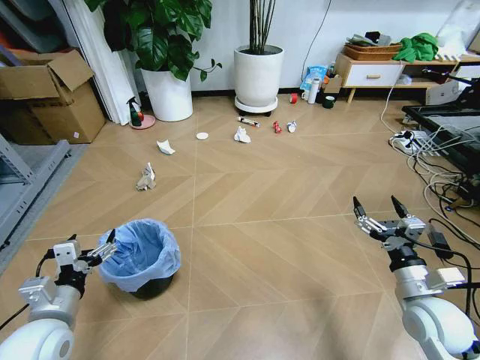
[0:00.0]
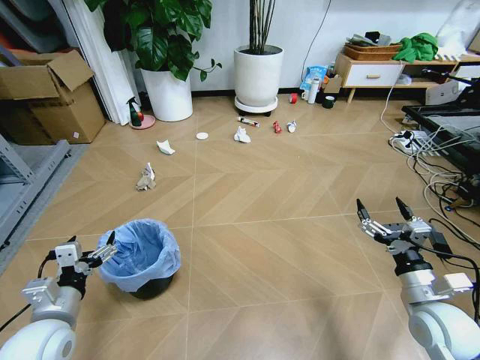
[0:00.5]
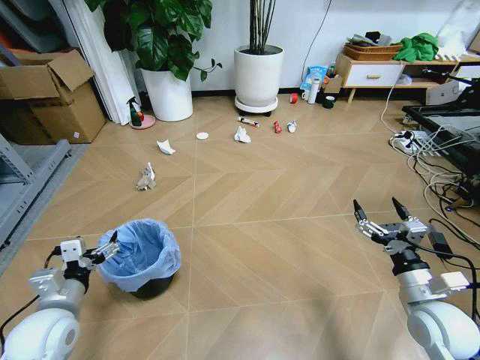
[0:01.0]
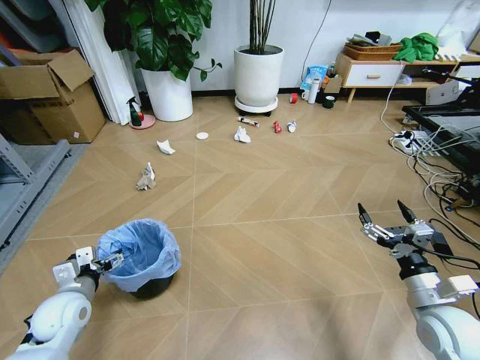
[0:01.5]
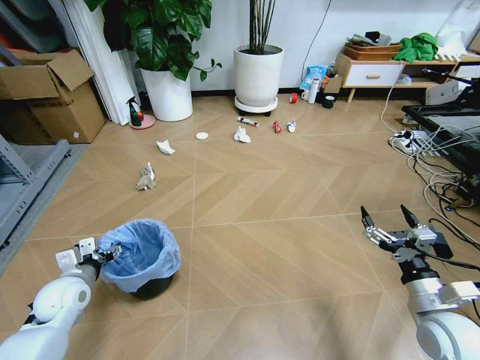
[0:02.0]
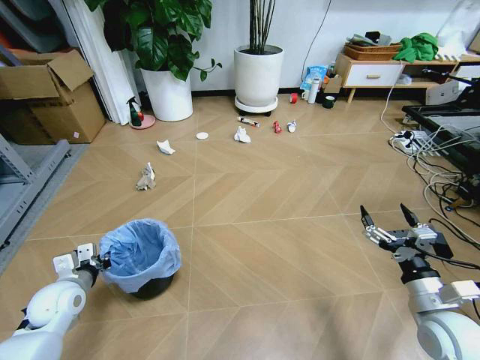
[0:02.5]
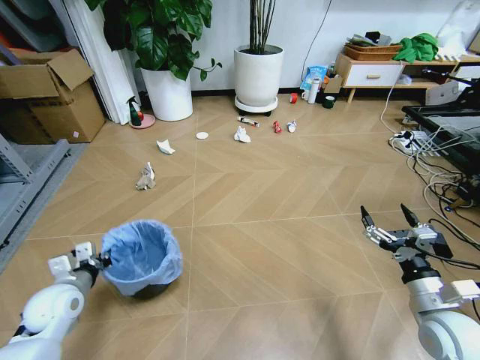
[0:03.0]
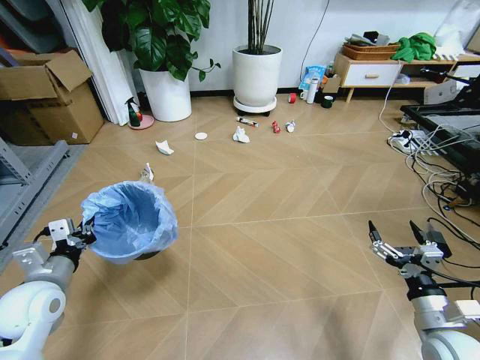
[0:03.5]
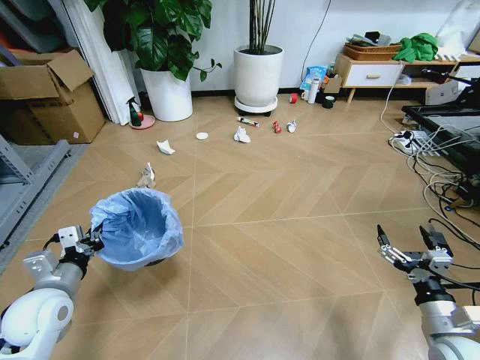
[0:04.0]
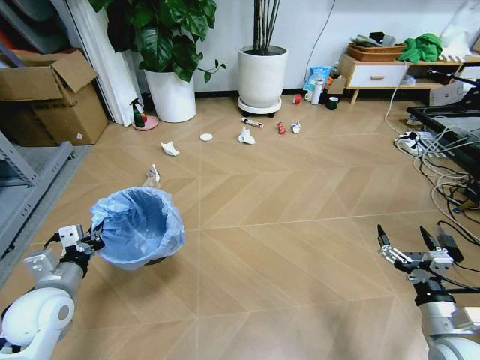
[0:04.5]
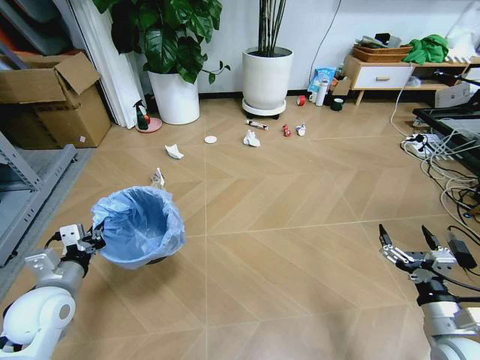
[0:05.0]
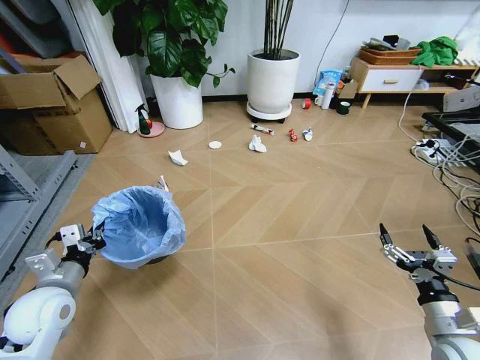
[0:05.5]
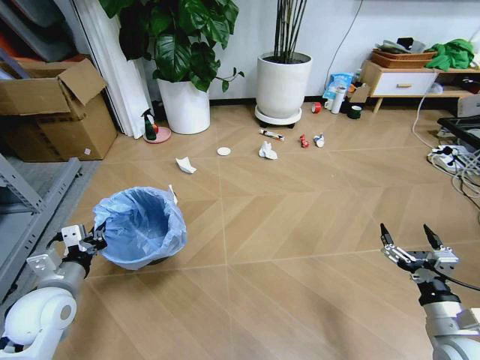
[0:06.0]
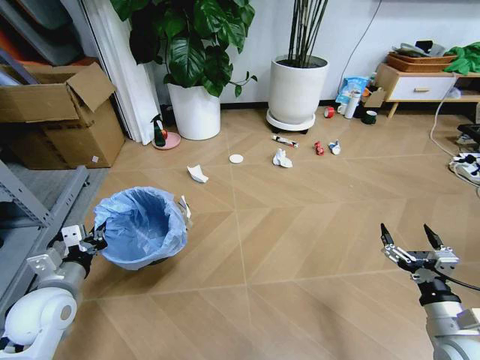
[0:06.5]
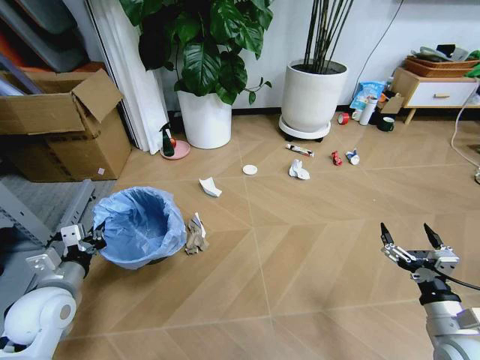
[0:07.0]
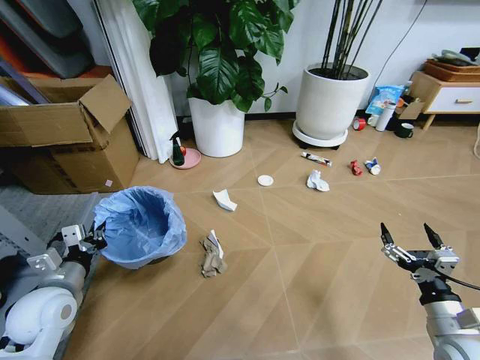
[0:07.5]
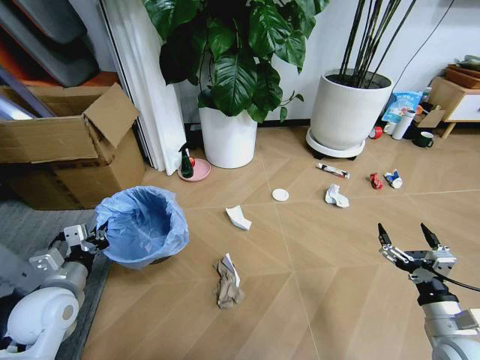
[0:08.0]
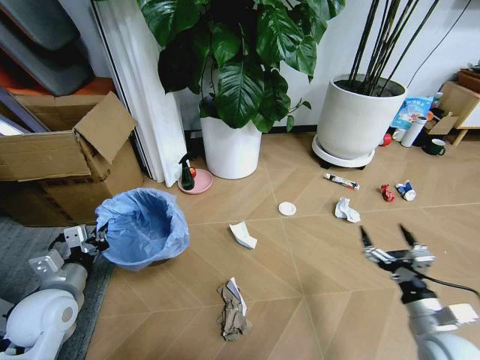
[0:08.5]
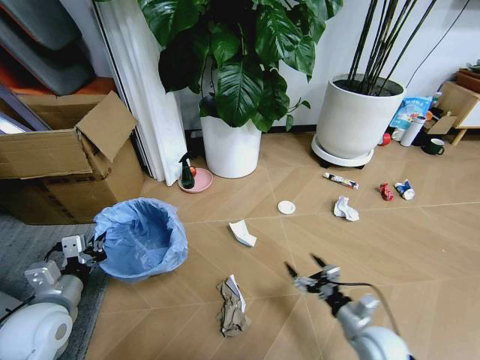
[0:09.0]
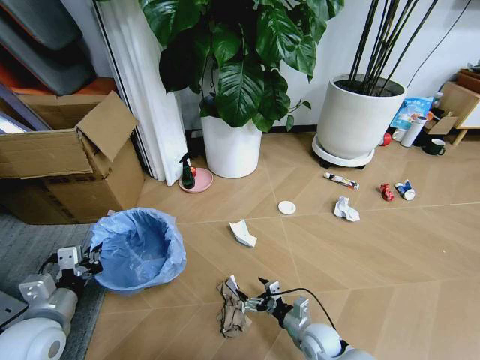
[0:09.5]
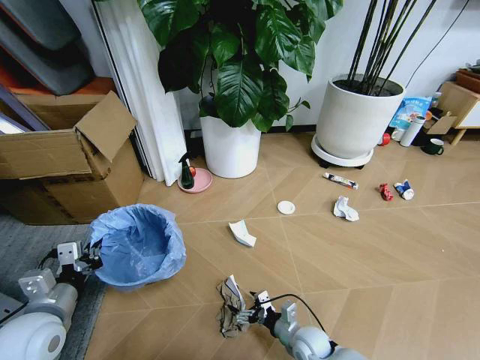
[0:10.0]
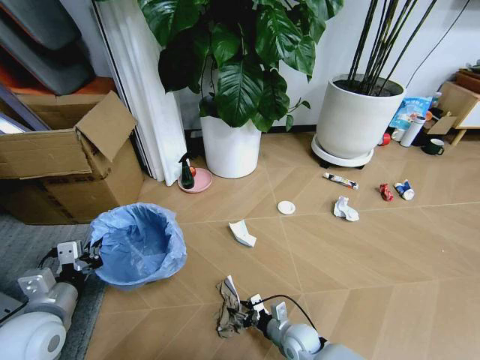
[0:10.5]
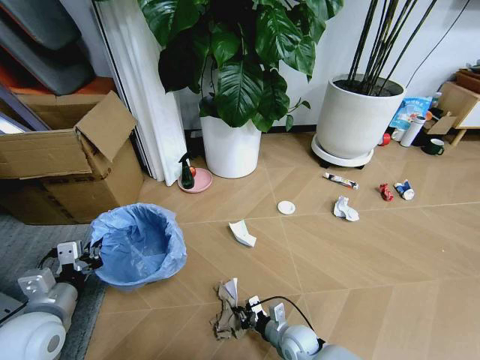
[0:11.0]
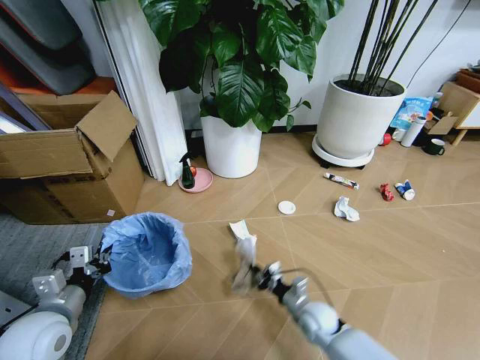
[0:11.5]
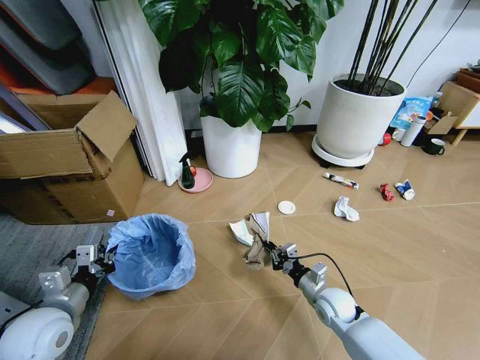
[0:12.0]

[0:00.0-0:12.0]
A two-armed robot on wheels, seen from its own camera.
Task of the whole recording: Pick up the trash bin and place the garbage on the floor into it.
0:02.0 to 0:04.0: The left gripper travels upward and backward by roughly 10 cm, and closes.
0:08.0 to 0:10.0: The right gripper shifts roughly 30 cm to the left and downward.
0:10.0 to 0:12.0: The right gripper moves upward, forward and to the right, roughly 10 cm, and closes.

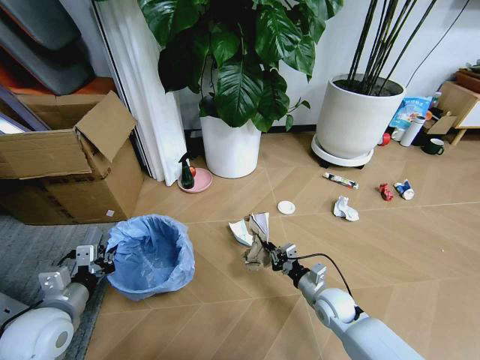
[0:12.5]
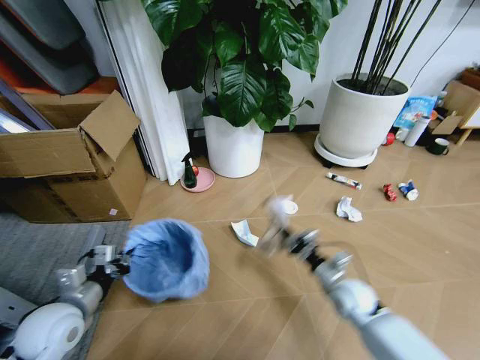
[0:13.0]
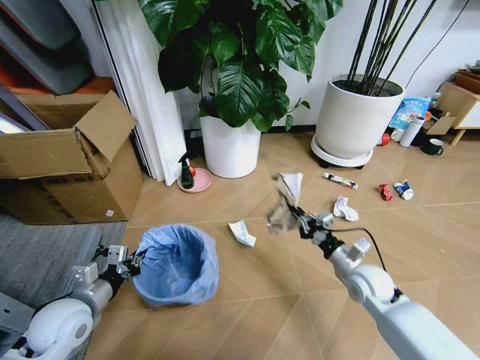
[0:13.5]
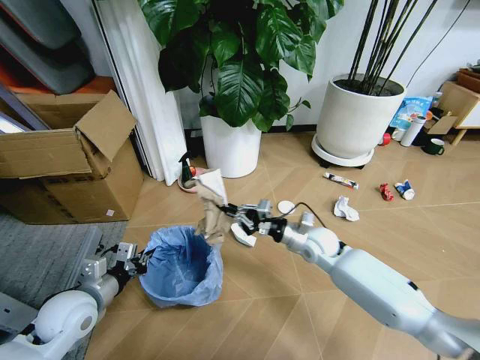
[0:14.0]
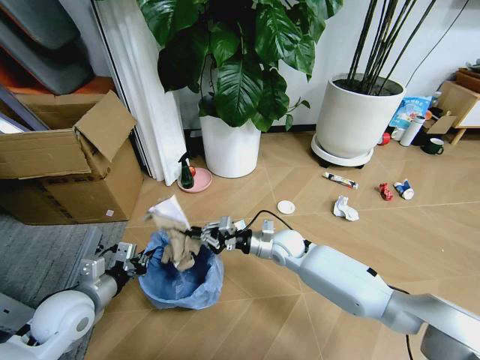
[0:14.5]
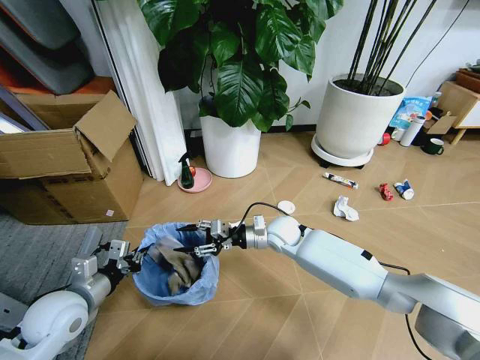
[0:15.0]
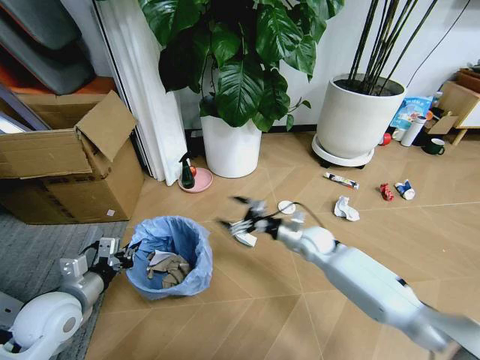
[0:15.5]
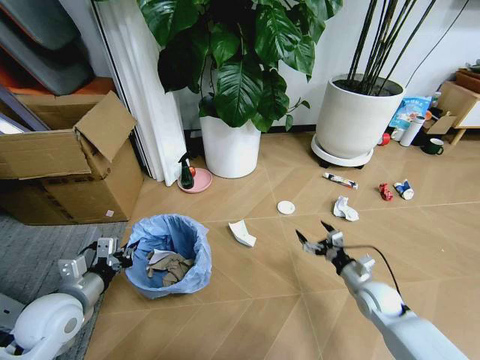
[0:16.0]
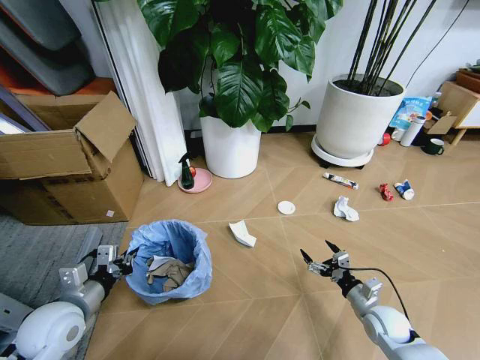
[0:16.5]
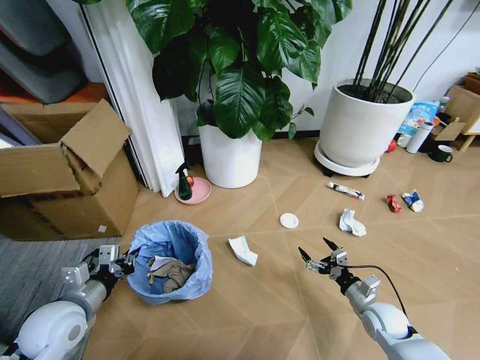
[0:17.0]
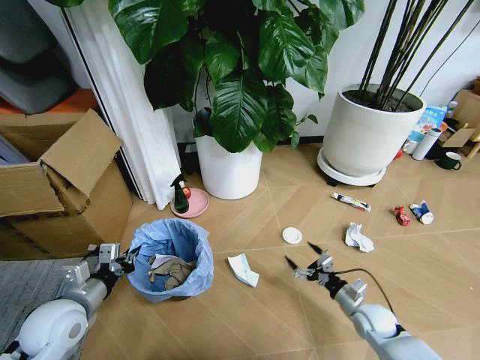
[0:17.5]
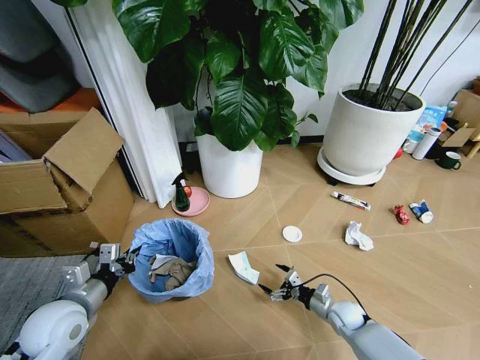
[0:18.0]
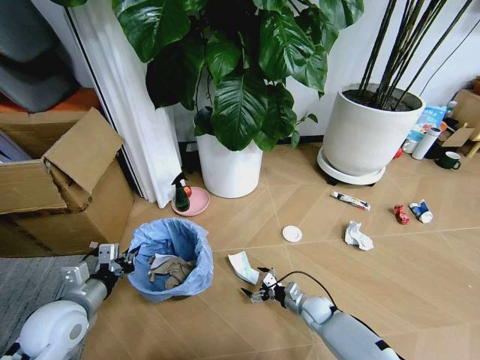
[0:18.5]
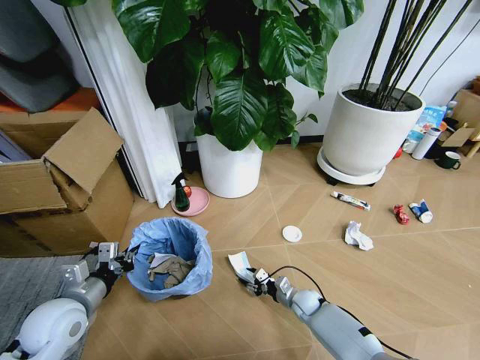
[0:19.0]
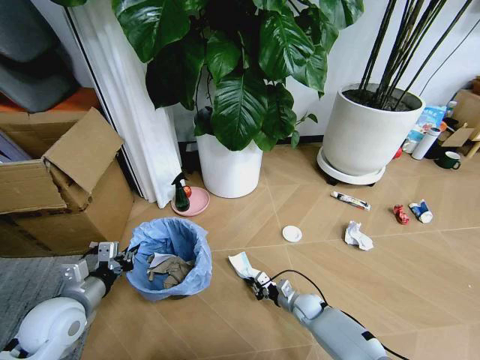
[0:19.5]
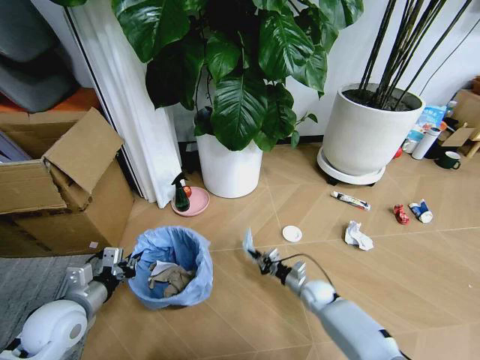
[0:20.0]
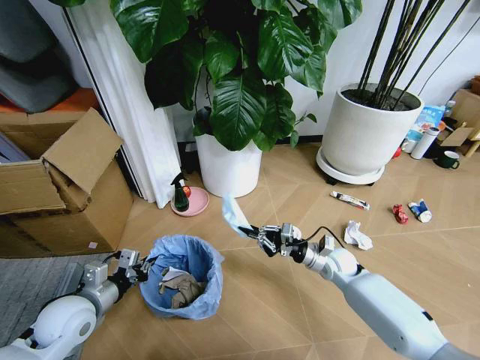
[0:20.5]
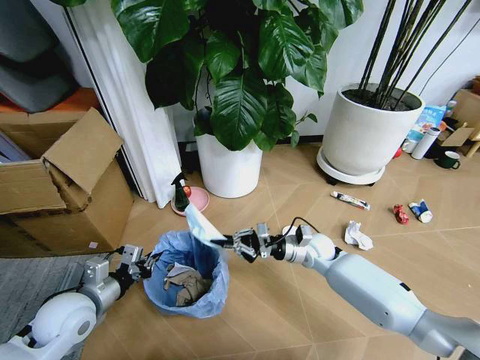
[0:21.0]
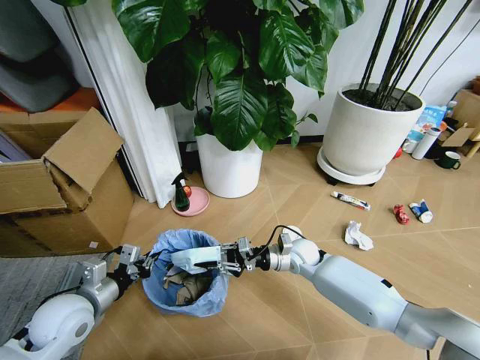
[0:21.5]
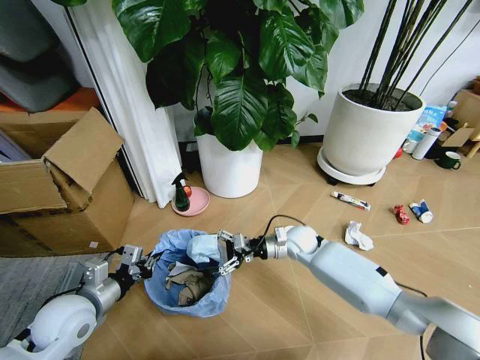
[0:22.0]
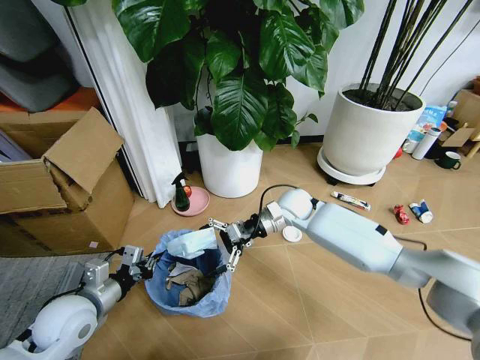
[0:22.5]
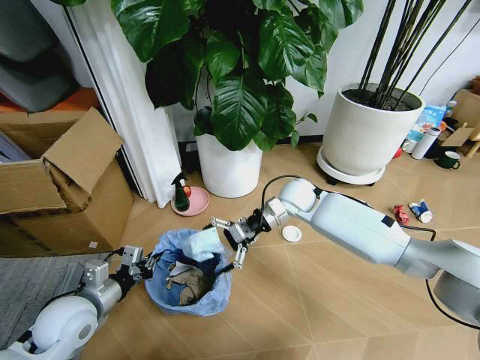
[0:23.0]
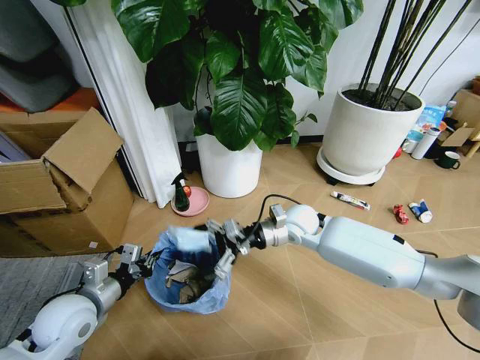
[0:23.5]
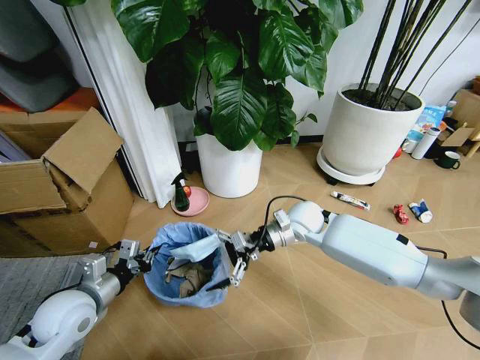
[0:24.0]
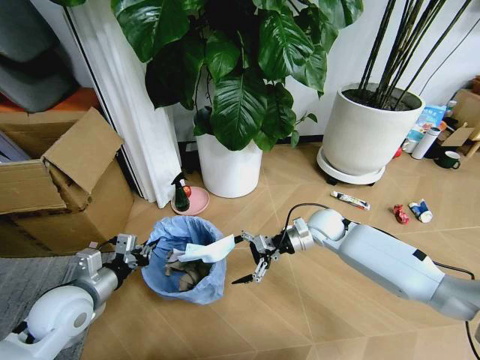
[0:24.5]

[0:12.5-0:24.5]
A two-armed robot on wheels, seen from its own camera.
Task of the whole recording: Pick up the trash bin and place the garbage on the floor into it.
0:12.5 to 0:14.5: The right gripper heads forward, to the left and upward, covering about 20 cm.
0:14.5 to 0:16.5: The right gripper travels to the right, backward and downward by approximately 30 cm, and opens up.
0:16.5 to 0:18.5: The right gripper goes roughly 20 cm to the left, downward and forward.
0:18.5 to 0:20.5: The right gripper is displaced upward and forward by roughly 20 cm, and closes.
0:20.5 to 0:22.5: The right gripper goes about 20 cm upward, to the left and forward, and opens up.
0:22.5 to 0:24.5: The right gripper shifts roughly 10 cm to the right.

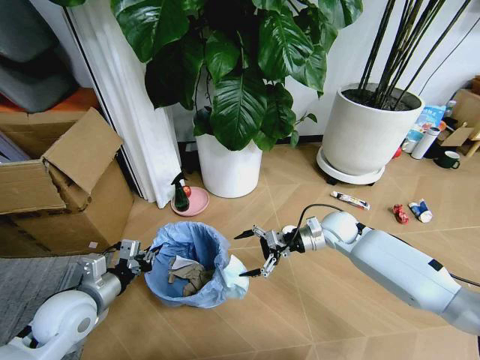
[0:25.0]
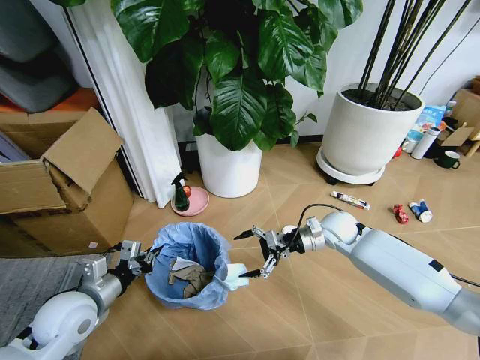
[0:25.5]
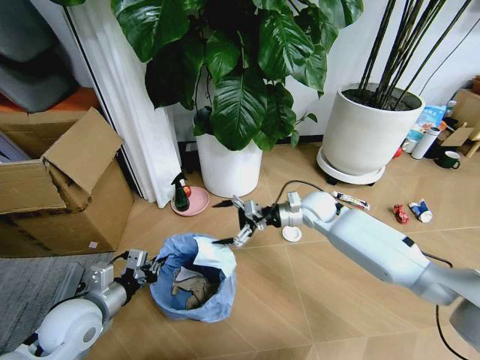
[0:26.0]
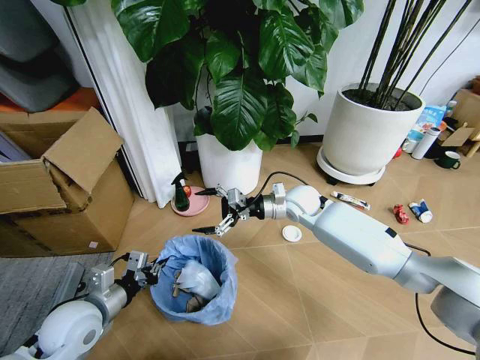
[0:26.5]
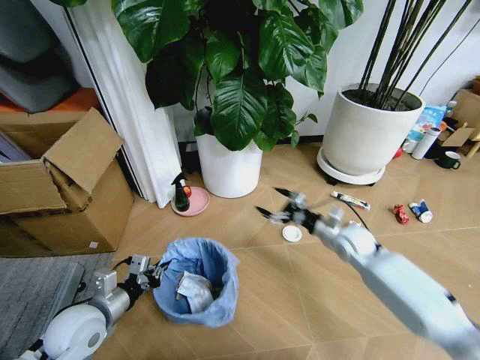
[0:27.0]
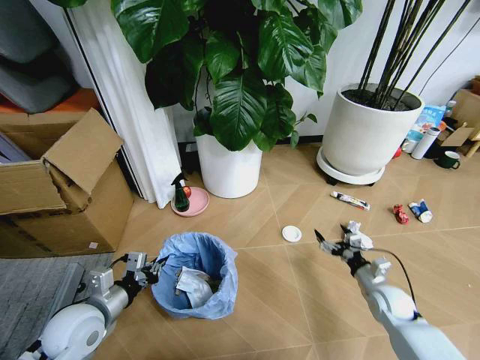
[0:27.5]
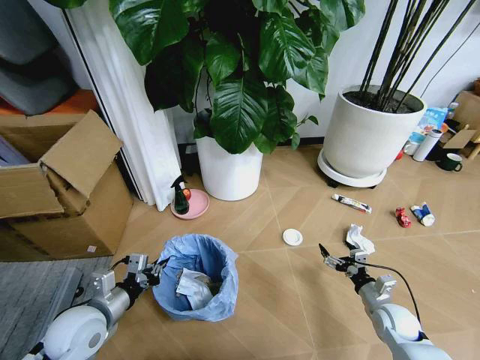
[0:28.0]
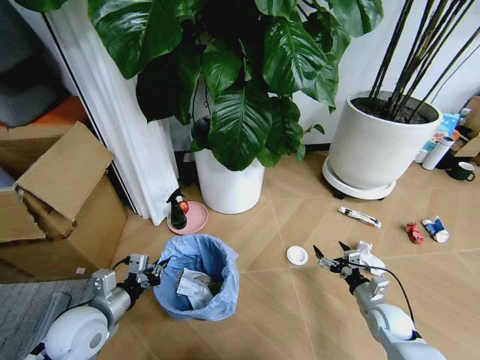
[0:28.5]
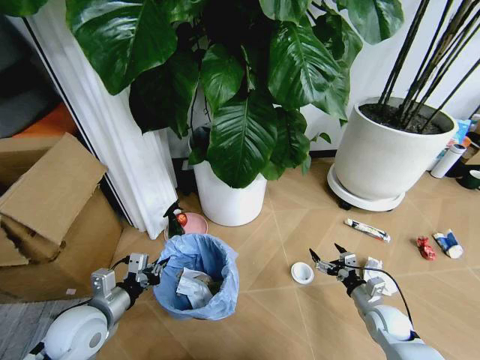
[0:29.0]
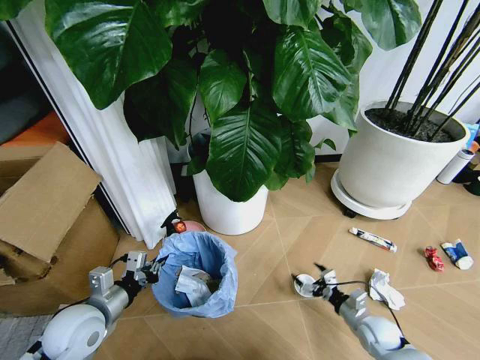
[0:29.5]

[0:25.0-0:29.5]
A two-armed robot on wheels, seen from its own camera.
Task of the whole recording: Pick up the trash bin and place the garbage on the floor into it.
0:25.0 to 0:27.0: The right gripper travels to the left and back again, approximately 10 cm each way.
0:27.0 to 0:29.5: The right gripper heads backward and downward, covering about 20 cm.
